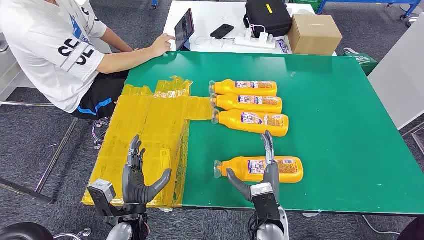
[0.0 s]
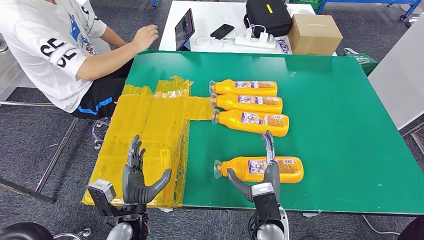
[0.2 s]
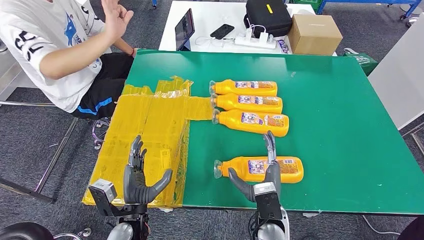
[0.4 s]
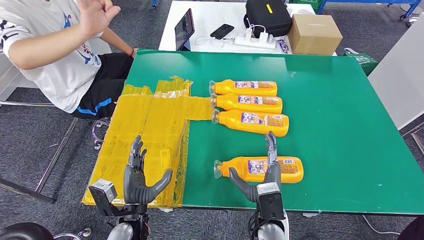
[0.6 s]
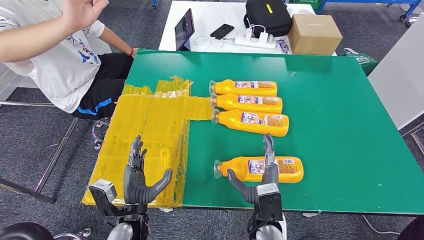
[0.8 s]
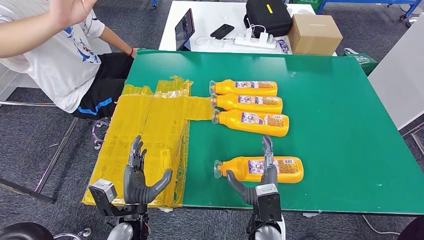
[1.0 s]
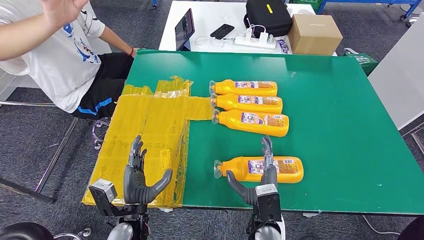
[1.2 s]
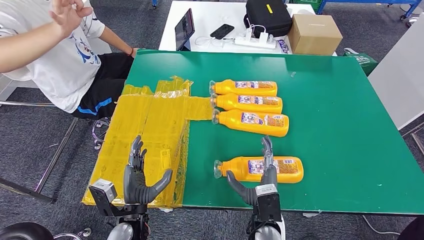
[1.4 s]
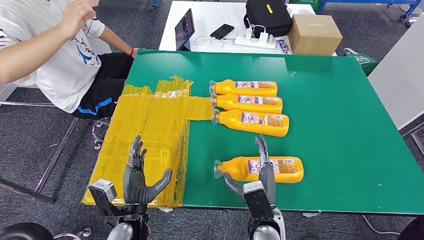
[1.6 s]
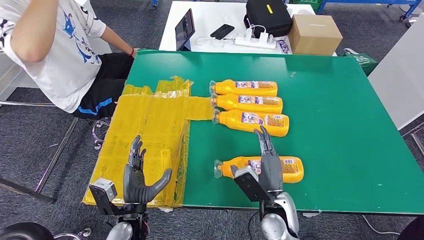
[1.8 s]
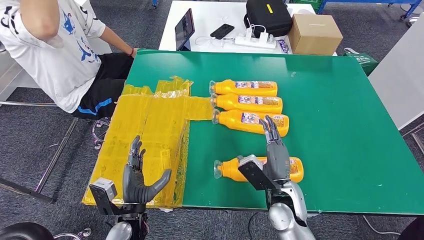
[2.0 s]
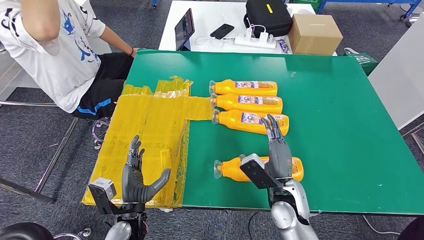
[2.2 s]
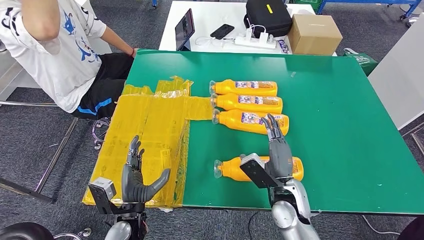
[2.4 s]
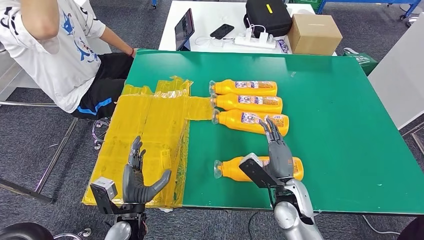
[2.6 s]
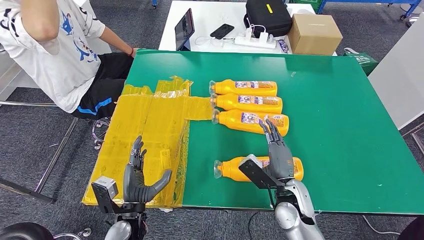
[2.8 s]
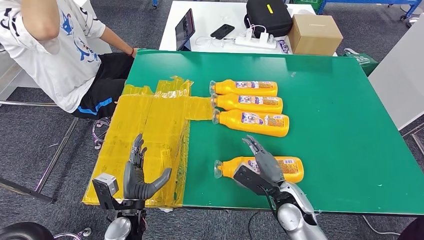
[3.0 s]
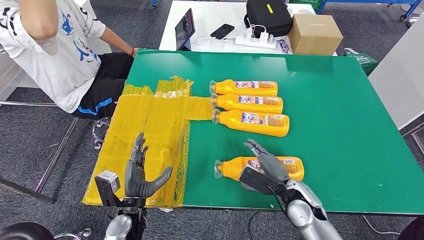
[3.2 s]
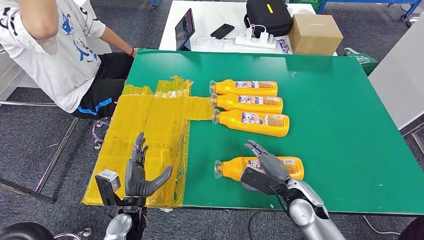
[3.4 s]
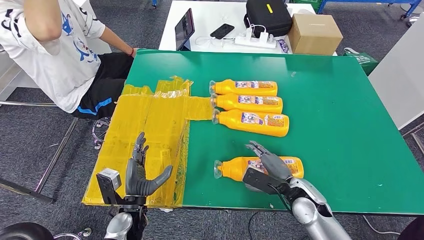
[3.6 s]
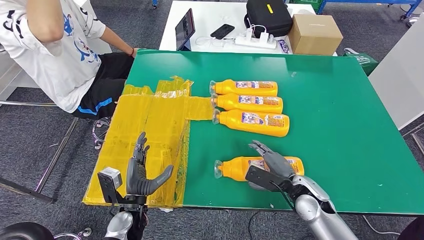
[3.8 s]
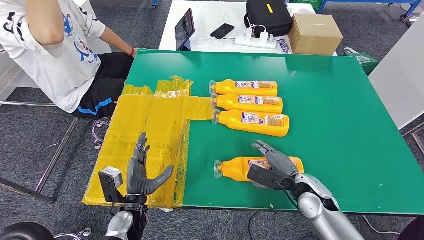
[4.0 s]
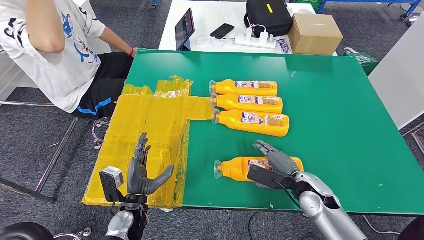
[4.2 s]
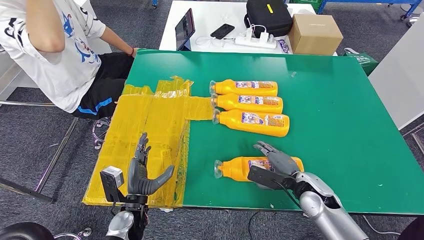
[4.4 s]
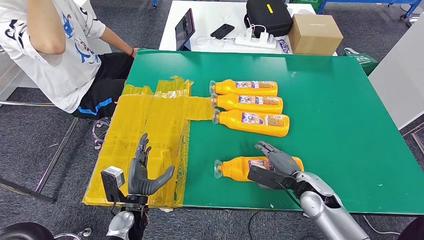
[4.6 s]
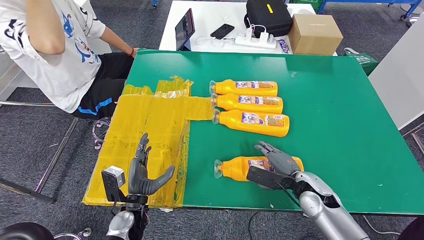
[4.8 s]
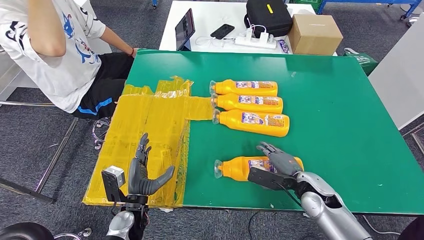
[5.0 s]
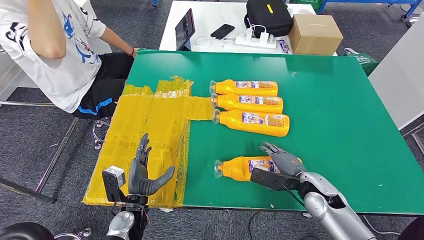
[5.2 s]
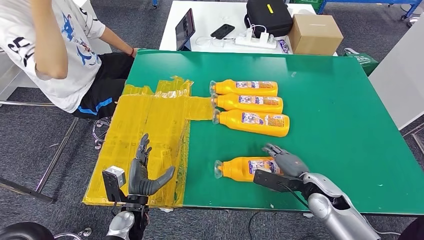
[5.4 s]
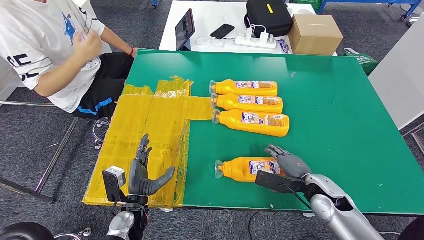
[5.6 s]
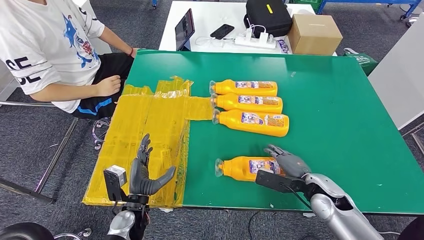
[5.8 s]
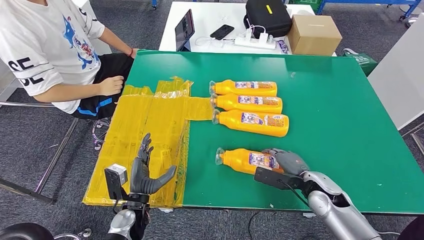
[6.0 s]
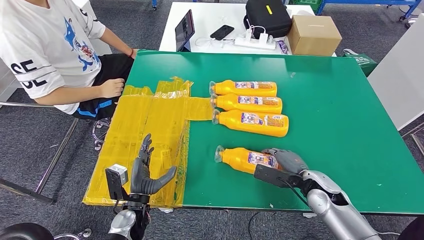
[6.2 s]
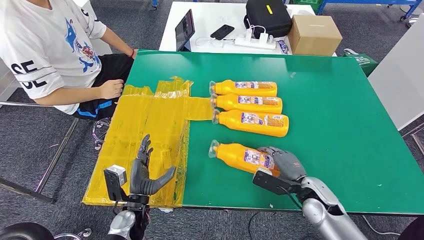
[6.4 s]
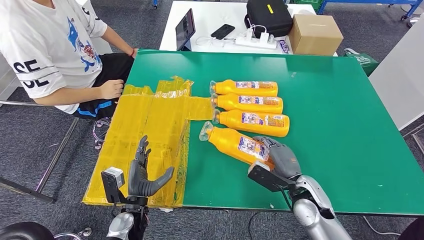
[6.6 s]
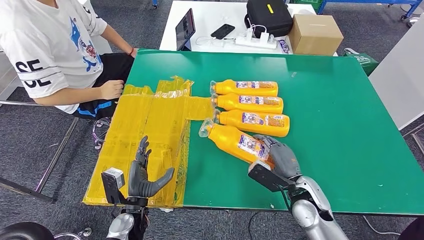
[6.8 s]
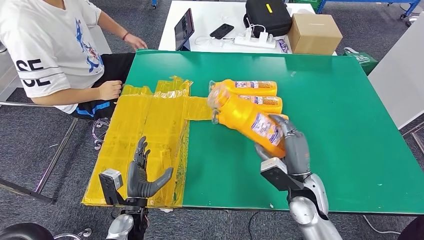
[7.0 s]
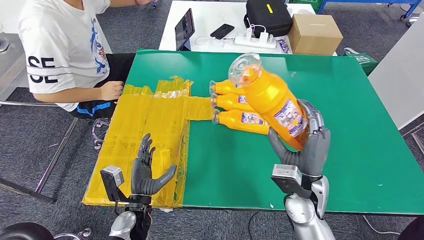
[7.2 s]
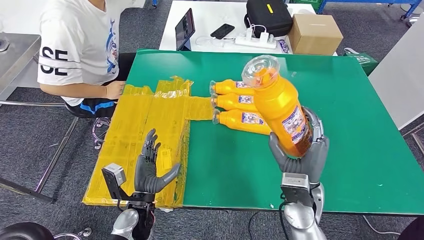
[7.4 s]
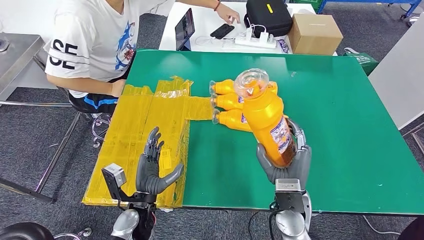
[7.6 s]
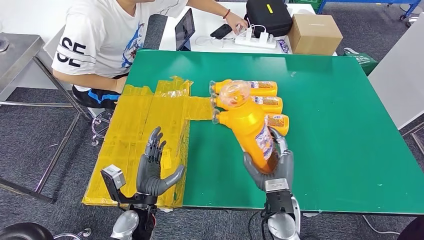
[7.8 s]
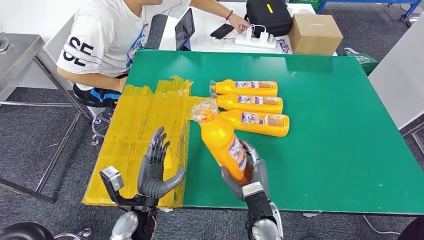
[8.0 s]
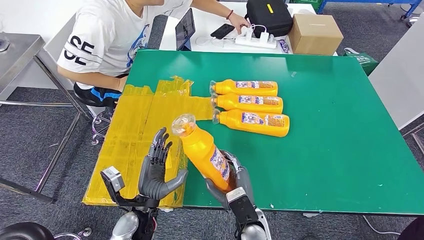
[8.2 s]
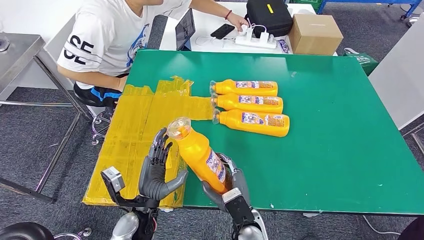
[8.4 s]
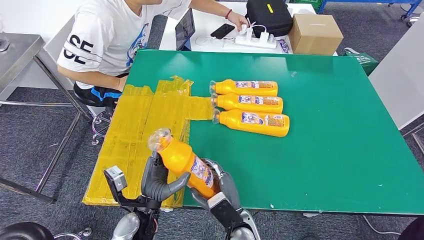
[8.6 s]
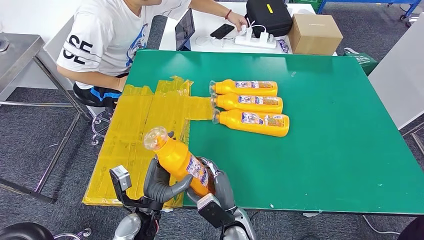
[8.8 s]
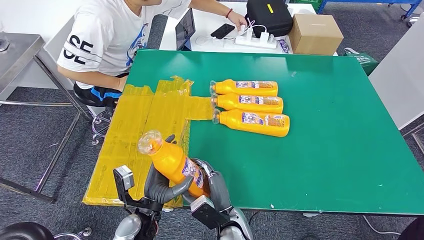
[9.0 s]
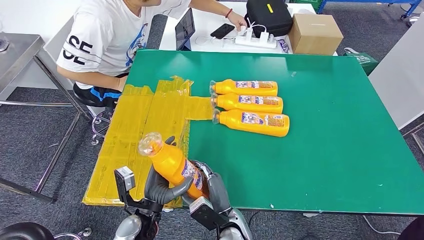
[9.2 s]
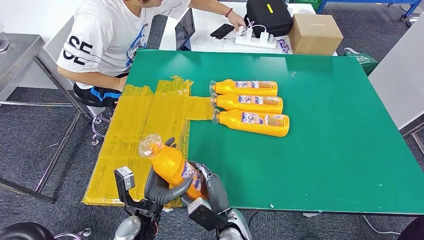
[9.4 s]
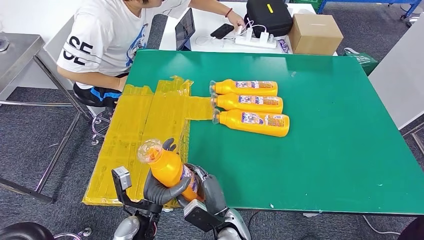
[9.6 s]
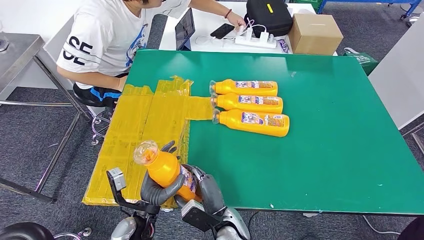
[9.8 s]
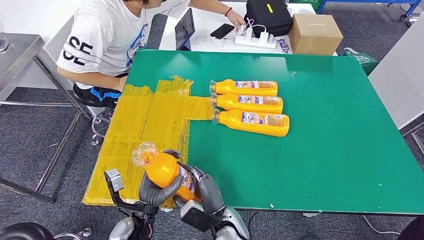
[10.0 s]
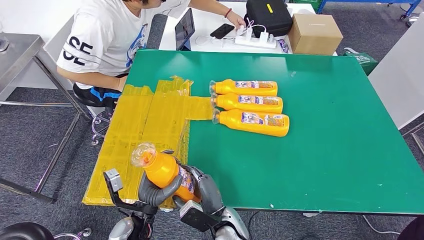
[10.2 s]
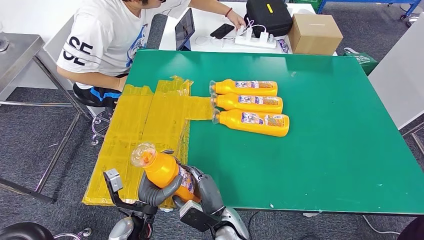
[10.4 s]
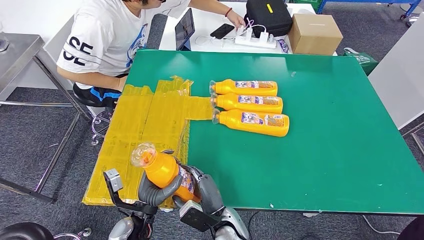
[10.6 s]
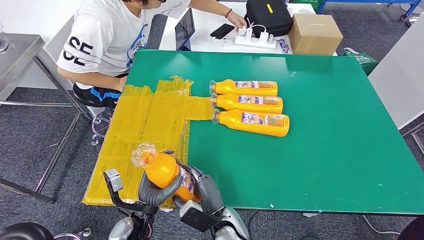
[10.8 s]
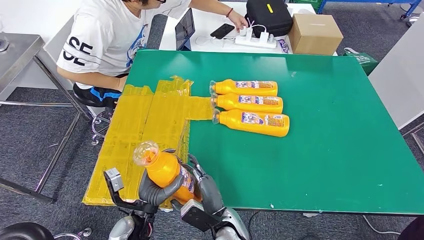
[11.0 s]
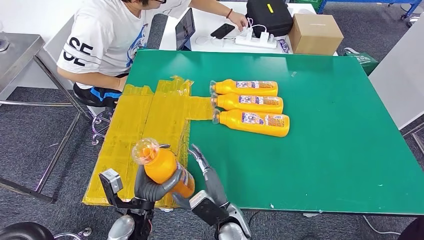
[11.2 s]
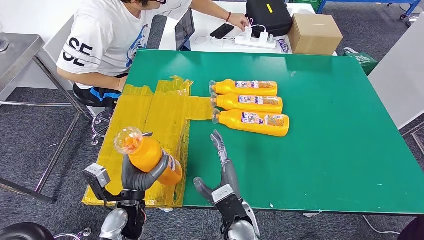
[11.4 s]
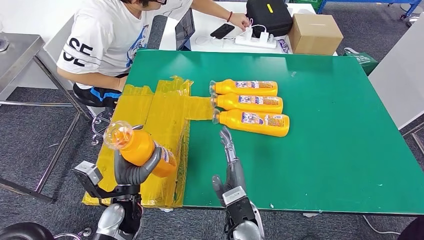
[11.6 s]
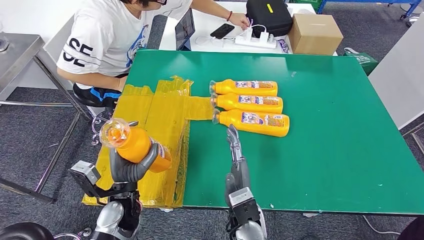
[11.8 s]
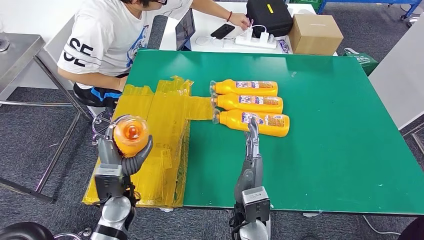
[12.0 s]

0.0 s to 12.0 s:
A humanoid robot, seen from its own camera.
Step, 0.0 to 8.4 s: Take the bottle from the table.
1.6 to 3.0 s: The right hand moves to the right, approximately 5 cm.
3.0 to 4.4 s: The right hand heads to the right, covering approximately 5 cm.
4.4 to 6.0 s: The hands stay close to where they were, moving slightly.
7.6 to 9.0 s: The right hand is displaced to the left and downward by roughly 15 cm.
9.0 to 10.4 s: There are only small adjustments of the hands.
10.4 to 12.0 s: The right hand moves upward, roughly 10 cm. Meanwhile the left hand travels upward by some 5 cm.

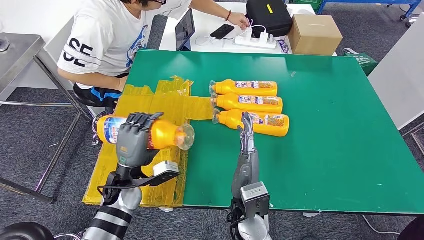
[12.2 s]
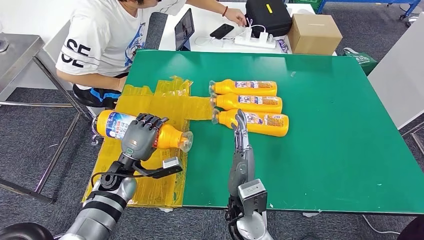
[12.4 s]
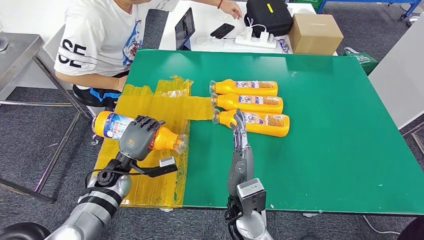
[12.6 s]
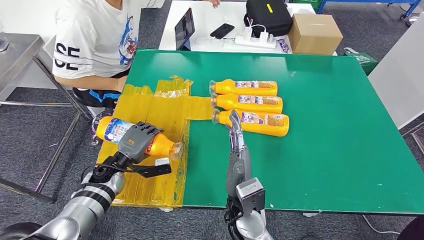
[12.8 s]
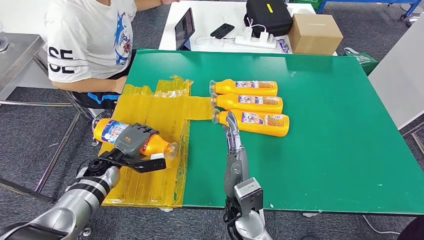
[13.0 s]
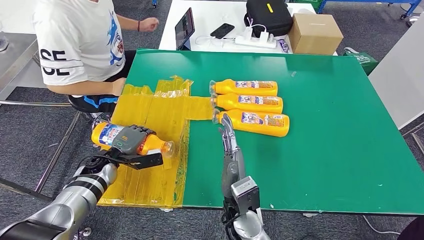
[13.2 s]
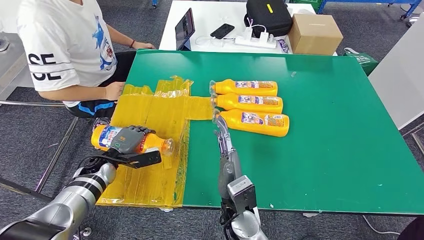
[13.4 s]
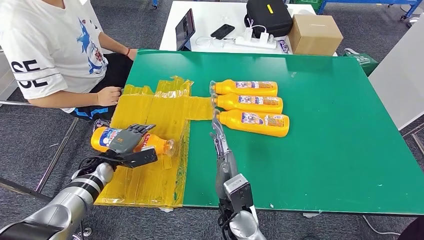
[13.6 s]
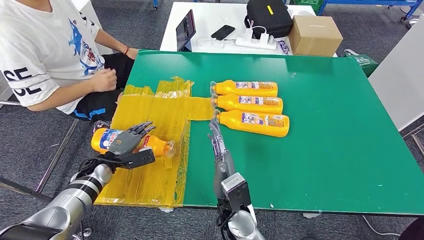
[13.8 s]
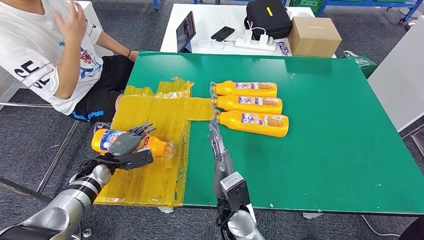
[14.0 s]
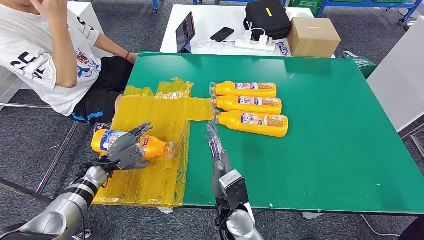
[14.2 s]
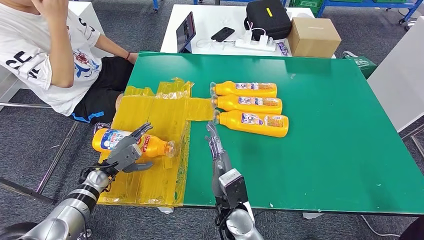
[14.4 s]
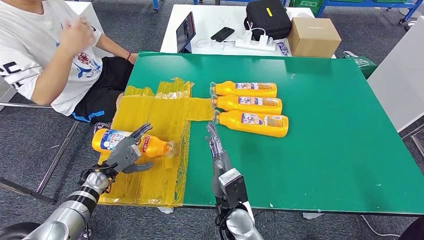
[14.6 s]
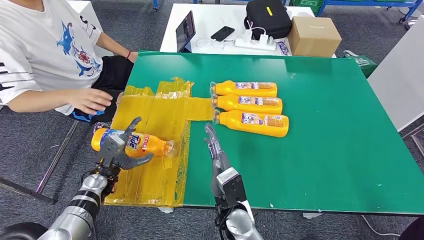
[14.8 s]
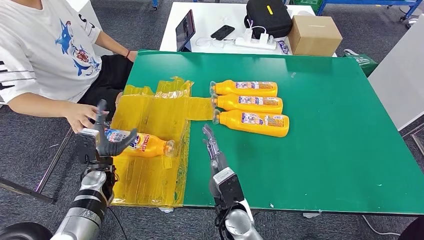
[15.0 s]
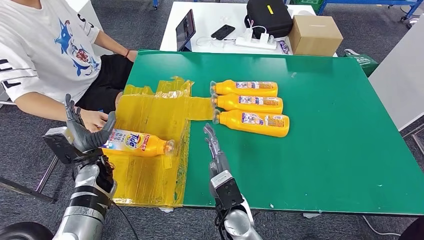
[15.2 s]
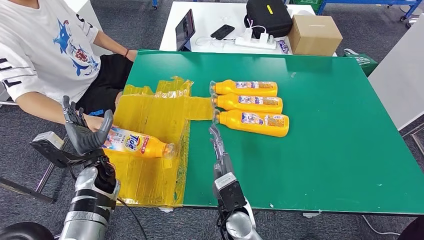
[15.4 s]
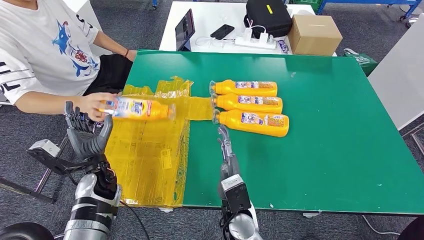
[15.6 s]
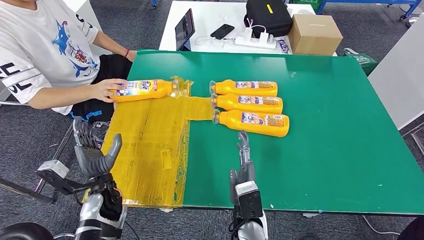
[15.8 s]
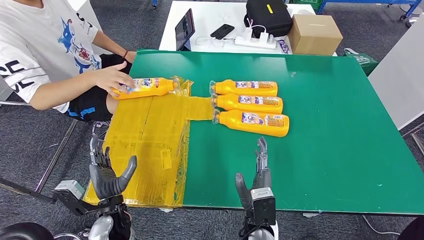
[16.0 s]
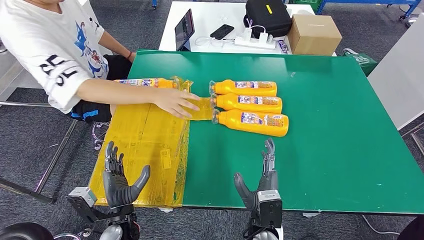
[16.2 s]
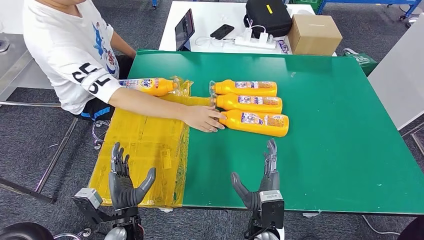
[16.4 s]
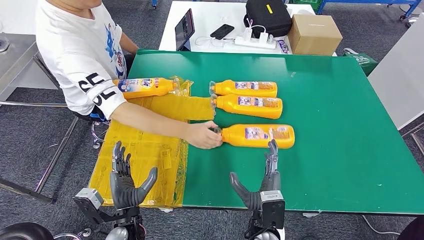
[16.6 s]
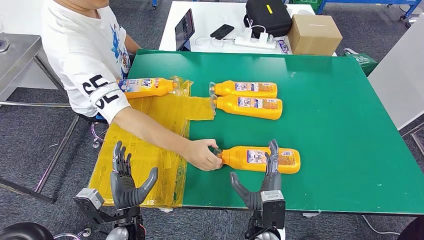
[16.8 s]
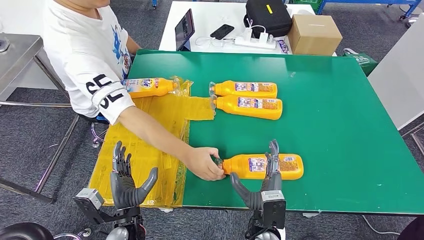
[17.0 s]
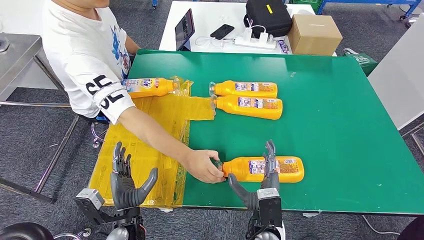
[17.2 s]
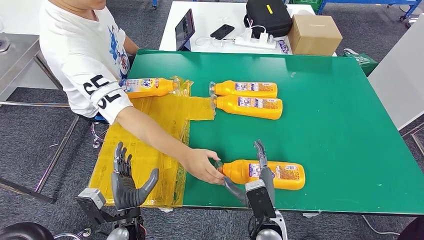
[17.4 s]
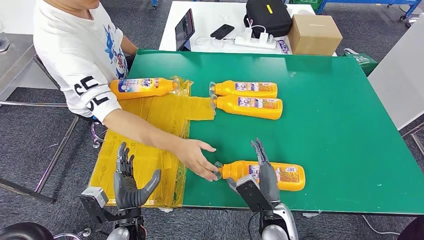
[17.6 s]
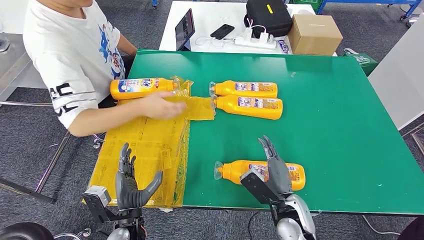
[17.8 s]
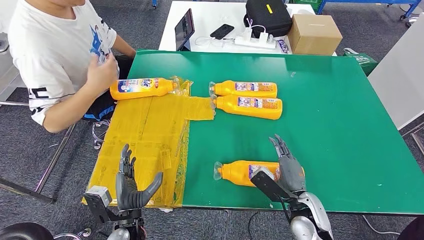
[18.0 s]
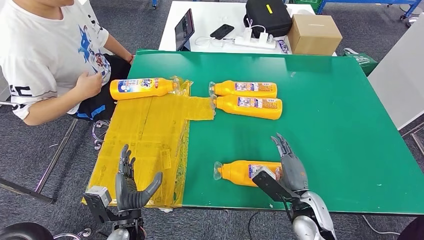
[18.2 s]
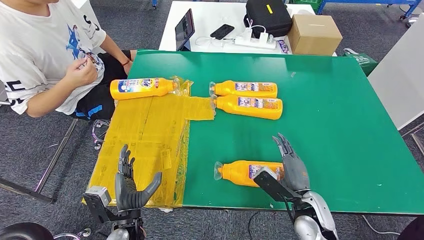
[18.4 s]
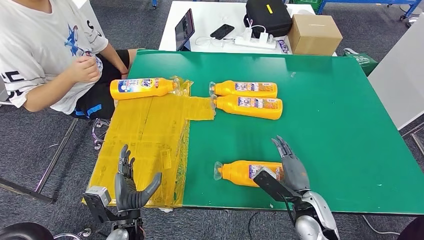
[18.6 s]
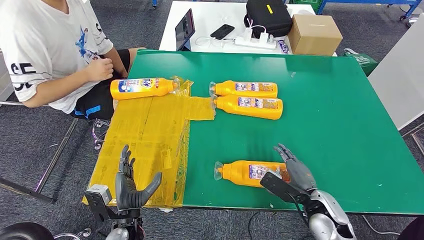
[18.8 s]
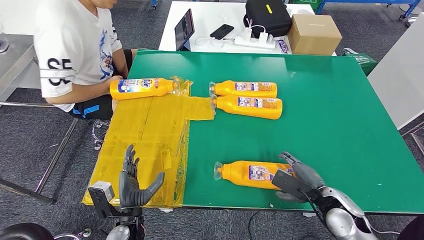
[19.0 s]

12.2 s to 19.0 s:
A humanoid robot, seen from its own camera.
17.6 to 19.0 s: The right hand shifts about 15 cm to the right.
